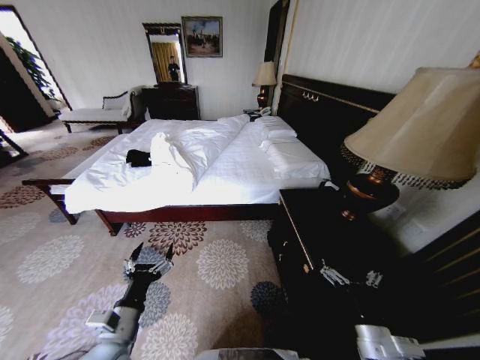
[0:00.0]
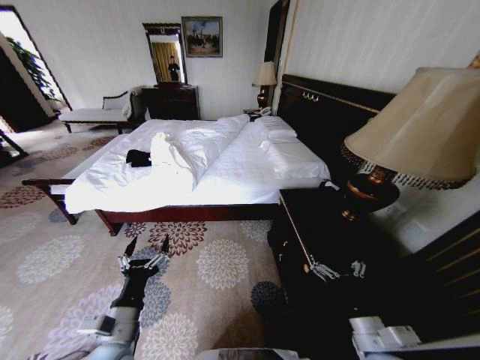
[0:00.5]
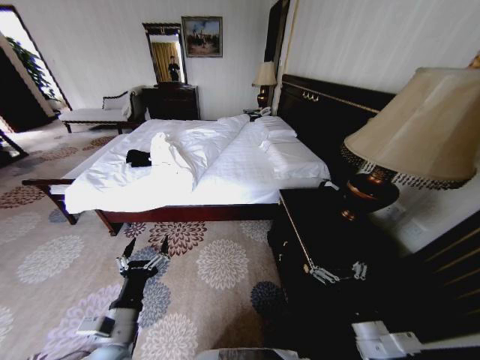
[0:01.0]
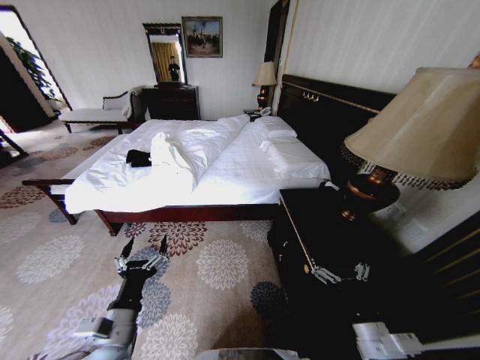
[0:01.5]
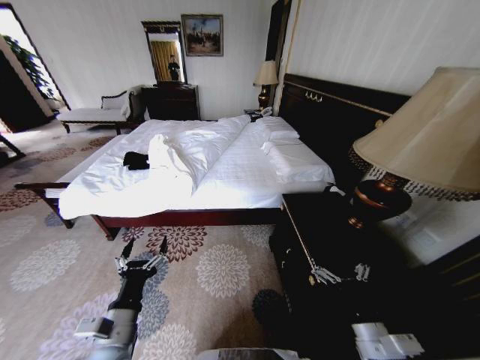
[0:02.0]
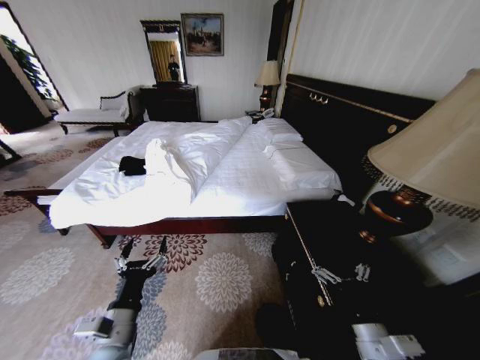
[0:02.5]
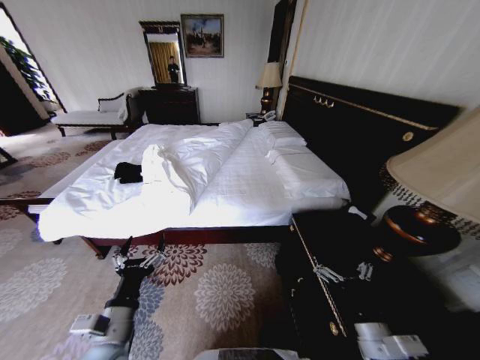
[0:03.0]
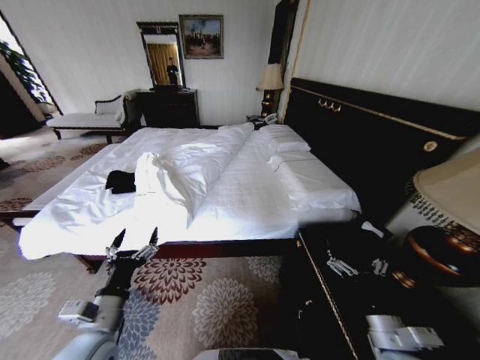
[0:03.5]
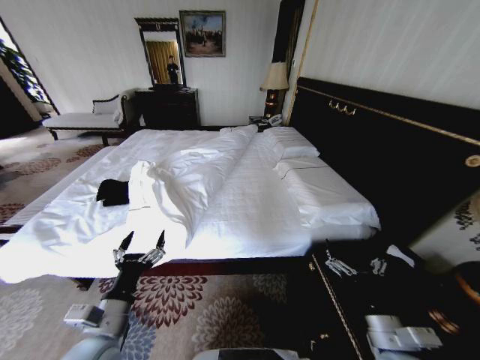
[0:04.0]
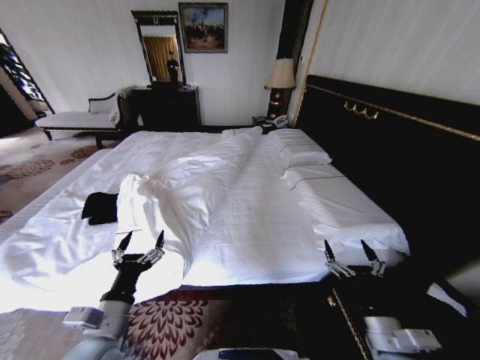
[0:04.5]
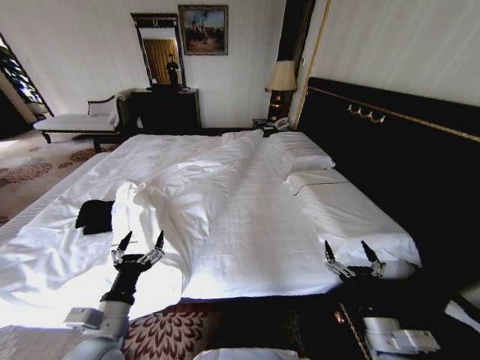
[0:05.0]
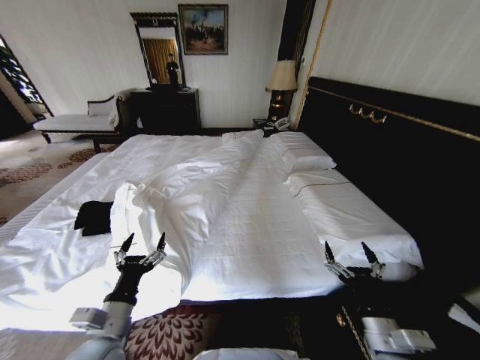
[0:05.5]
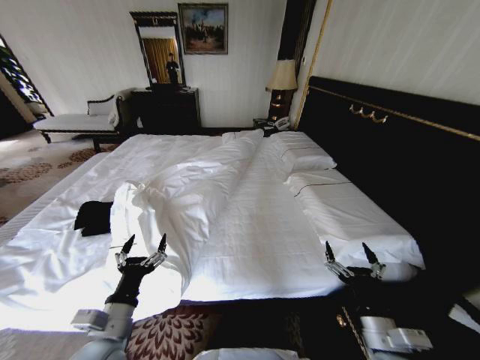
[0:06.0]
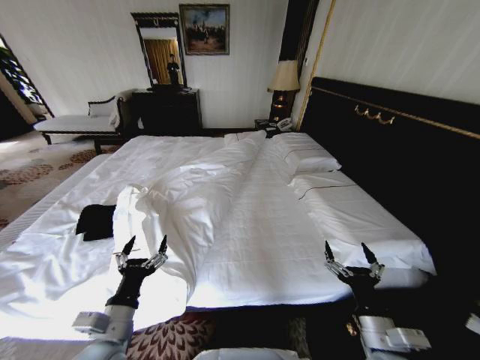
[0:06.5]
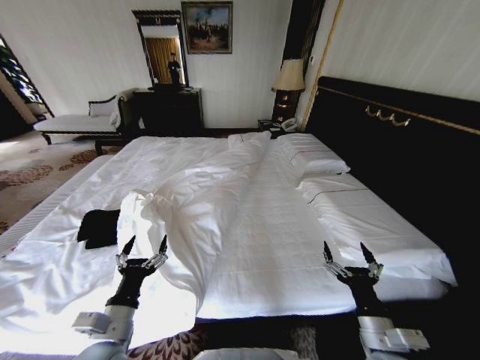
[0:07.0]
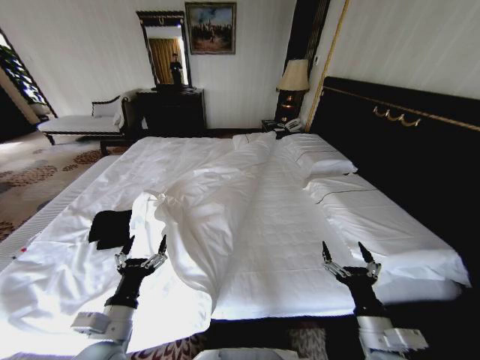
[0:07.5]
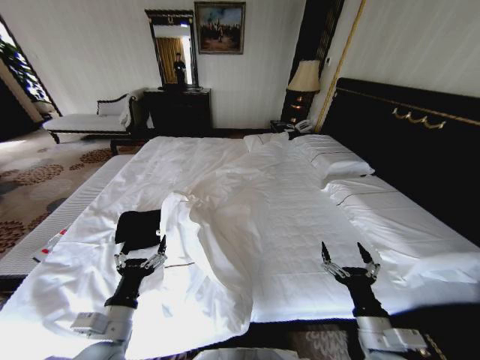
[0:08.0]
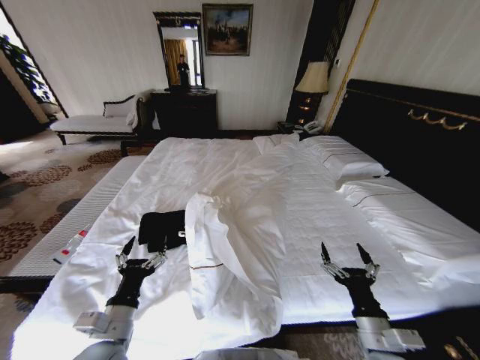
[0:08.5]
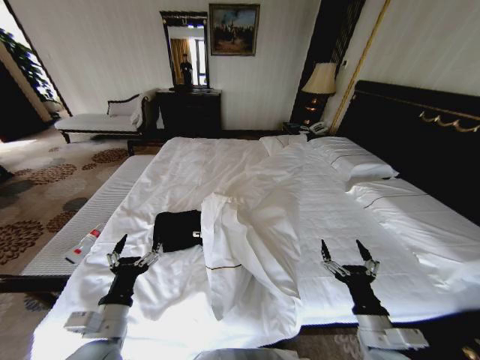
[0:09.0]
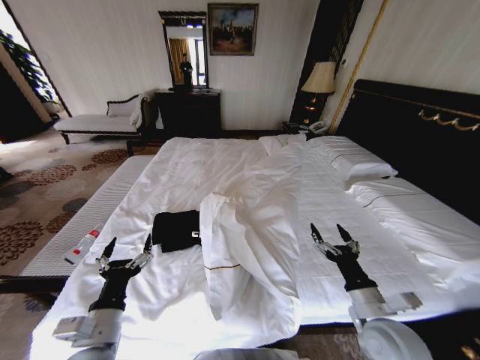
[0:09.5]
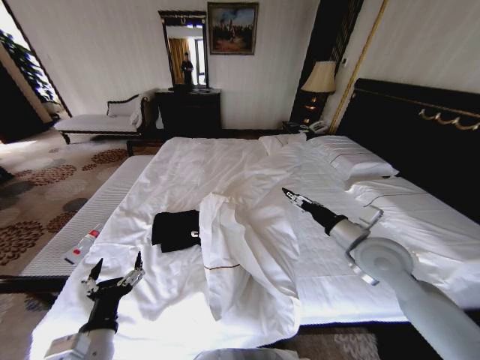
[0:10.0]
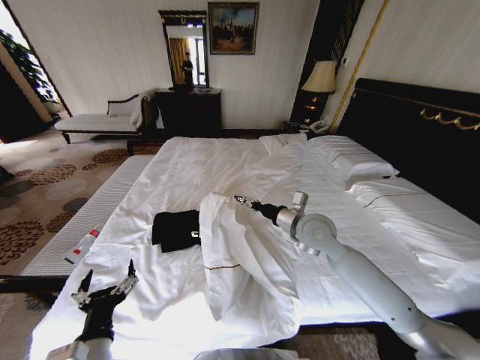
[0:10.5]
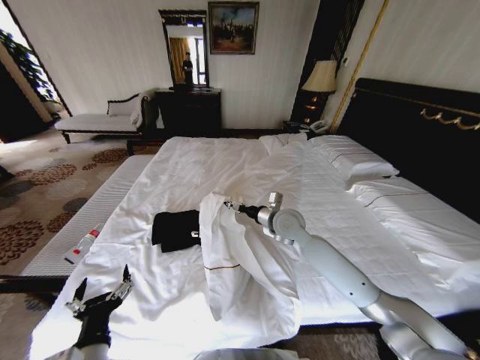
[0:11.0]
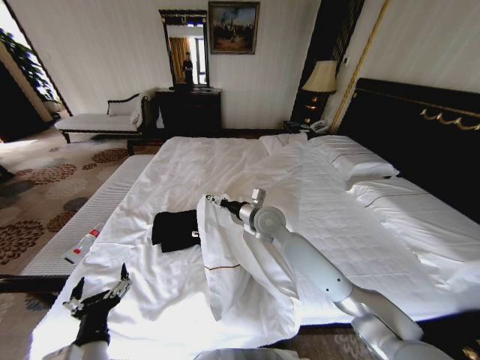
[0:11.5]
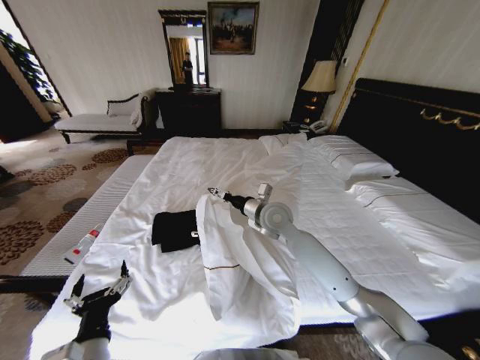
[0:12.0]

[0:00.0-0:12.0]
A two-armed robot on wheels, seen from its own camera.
Task of the whole recording: Fold the clothes on the bed.
0:08.0 to 0:10.0: The right gripper travels forward and upward by roughly 20 cm.
0:10.0 to 0:12.0: The right gripper is displaced to the left and forward by about 25 cm.

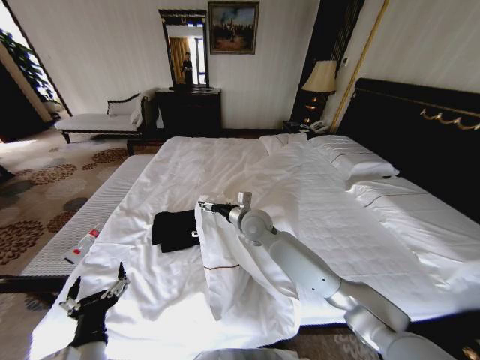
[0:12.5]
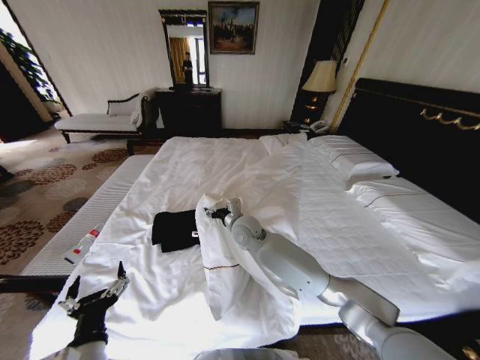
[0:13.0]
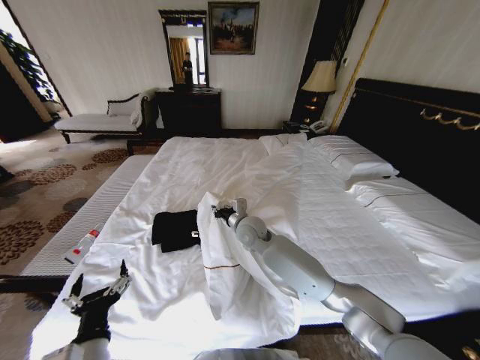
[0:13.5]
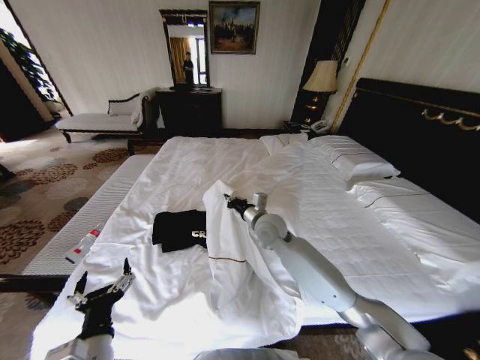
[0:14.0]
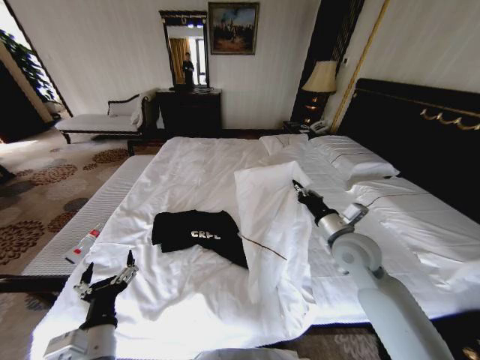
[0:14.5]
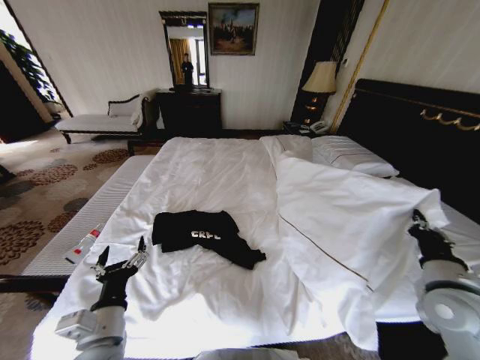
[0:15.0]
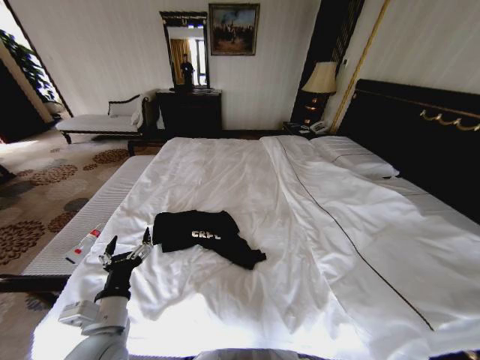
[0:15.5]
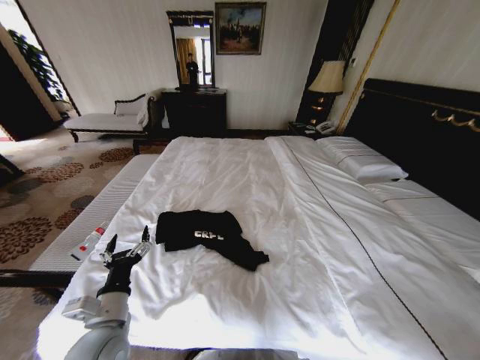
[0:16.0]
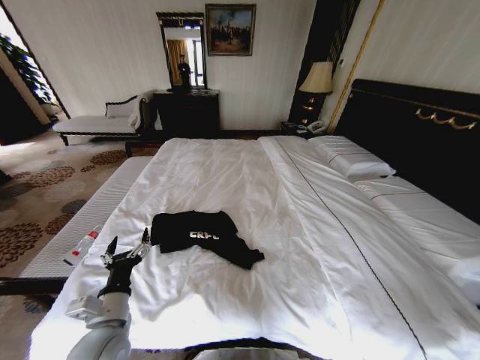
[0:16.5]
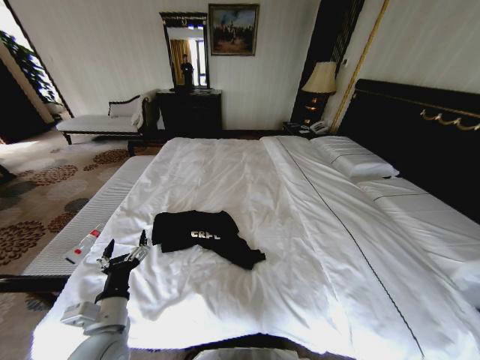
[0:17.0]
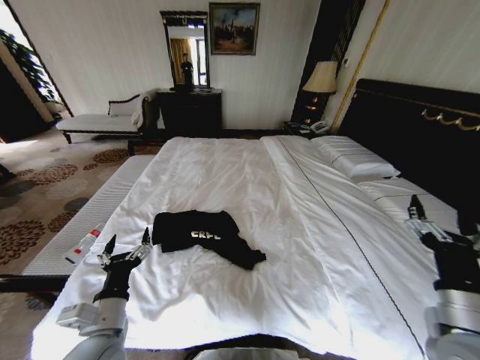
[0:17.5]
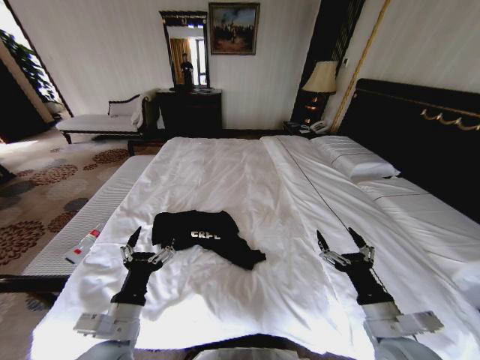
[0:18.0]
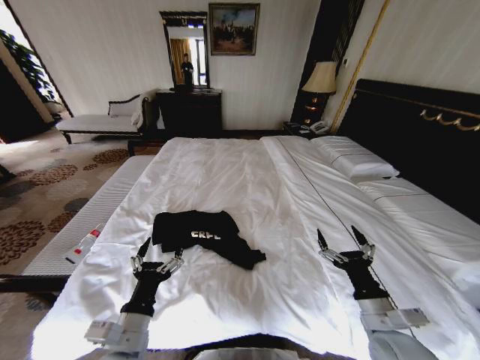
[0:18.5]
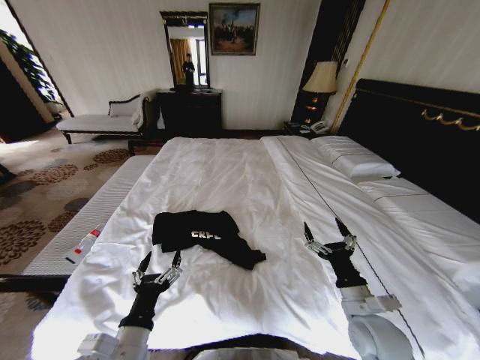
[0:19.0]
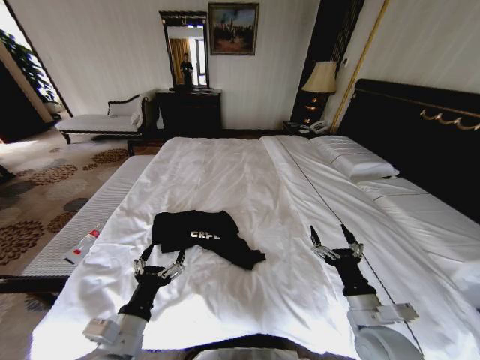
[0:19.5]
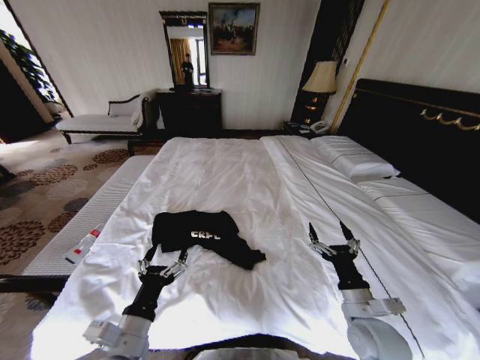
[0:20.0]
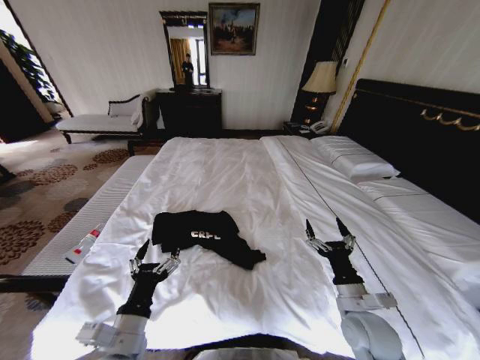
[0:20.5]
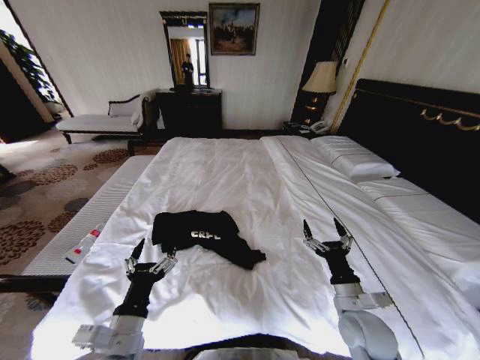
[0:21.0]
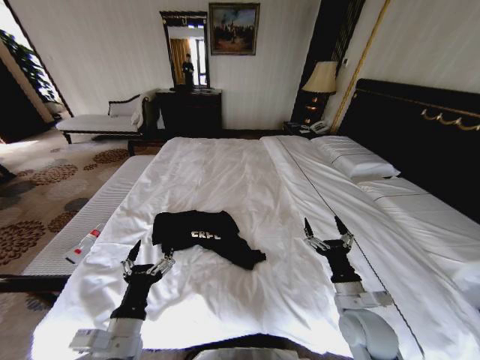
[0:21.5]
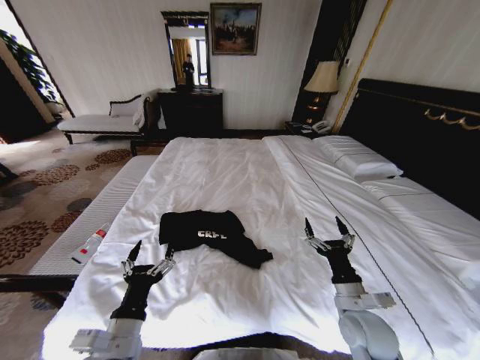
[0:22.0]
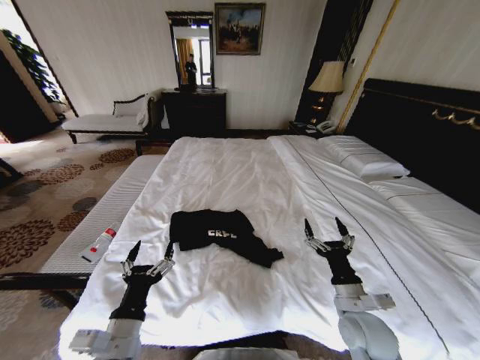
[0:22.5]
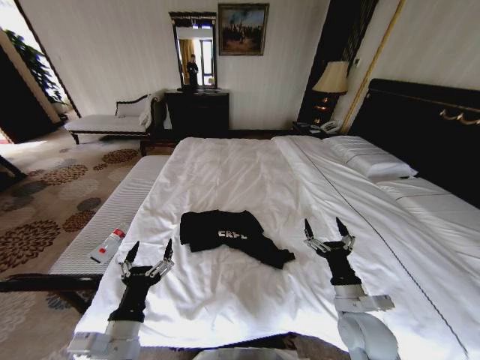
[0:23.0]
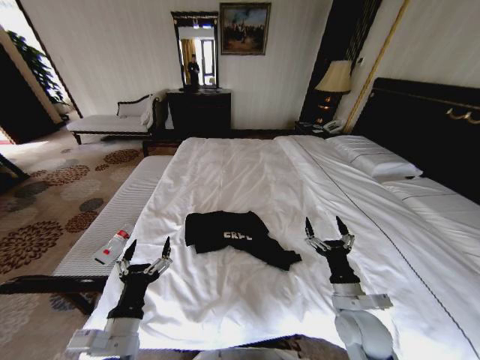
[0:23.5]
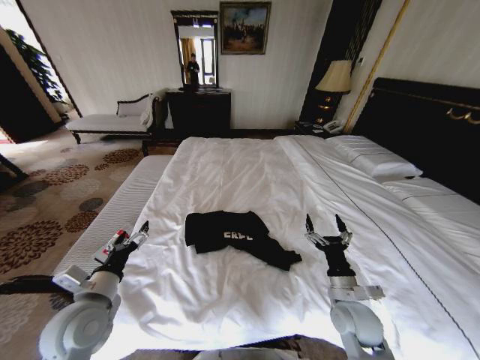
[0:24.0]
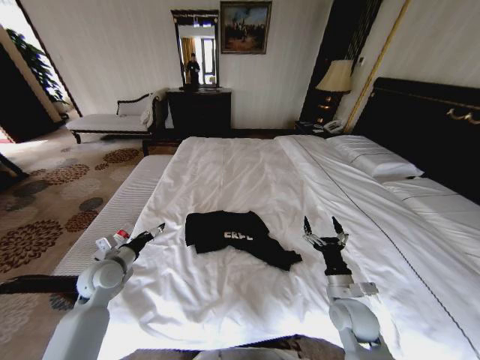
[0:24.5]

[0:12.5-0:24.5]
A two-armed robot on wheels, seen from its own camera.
Task of the whole recording: Fold the clothes on the bed.
0:12.5 to 0:14.5: The right gripper shifts some 25 cm to the right and backward, and closes its fingers.
0:14.5 to 0:16.5: The left gripper moves forward, about 5 cm, while the right gripper heads backward, to the right and downward, covering about 40 cm.
0:16.5 to 0:18.5: The right gripper is displaced to the left, forward and upward by roughly 25 cm, and opens its fingers; the left gripper moves roughly 5 cm.
0:18.5 to 0:20.5: The right gripper moves roughly 5 cm.
0:22.5 to 0:24.5: The right gripper moves about 5 cm. Meanwhile the left gripper is displaced forward and to the left by about 25 cm.

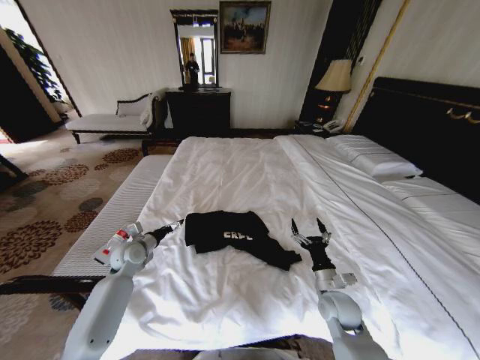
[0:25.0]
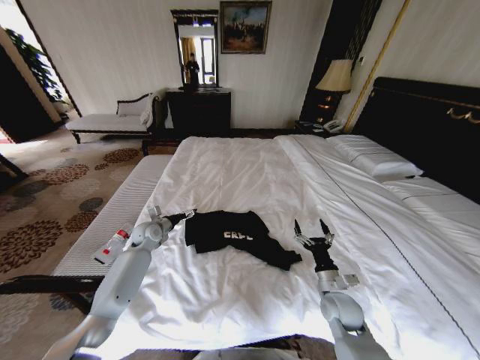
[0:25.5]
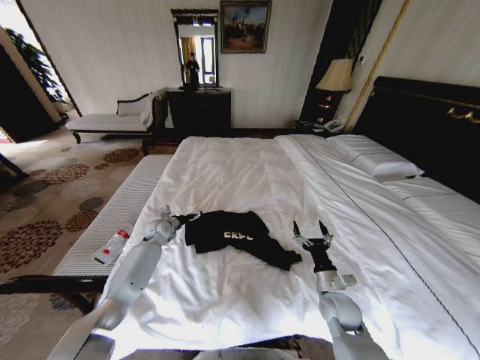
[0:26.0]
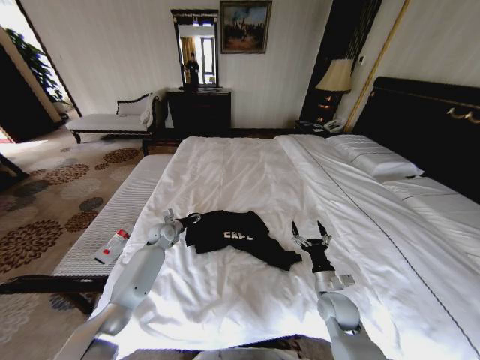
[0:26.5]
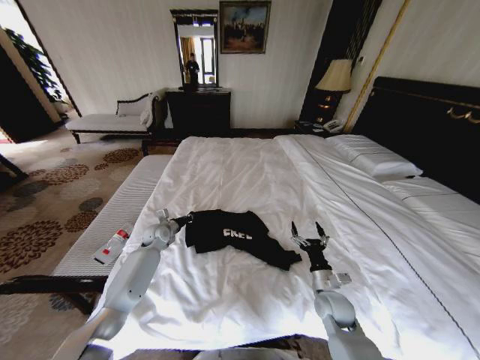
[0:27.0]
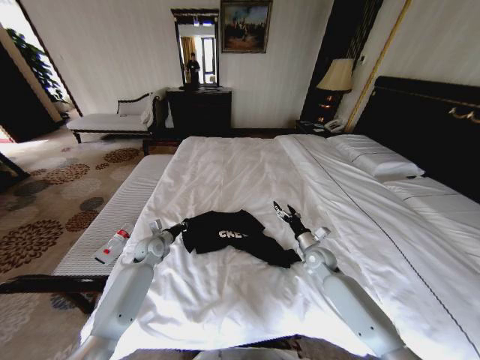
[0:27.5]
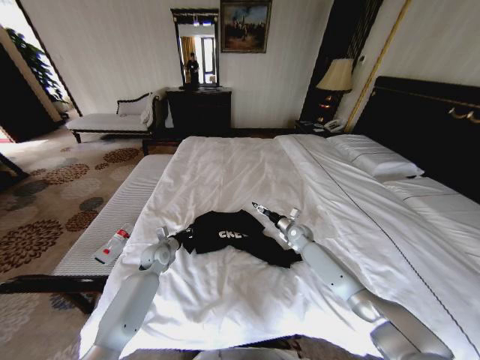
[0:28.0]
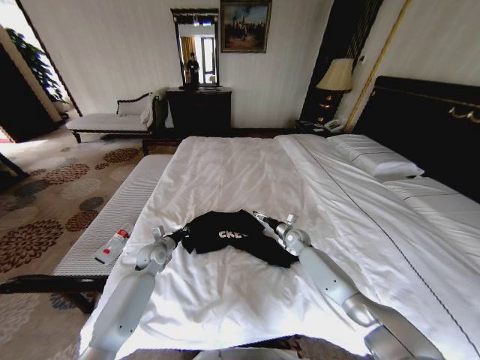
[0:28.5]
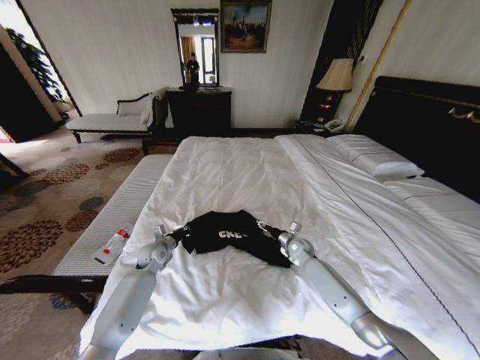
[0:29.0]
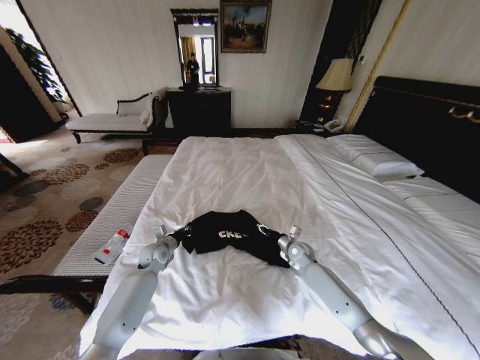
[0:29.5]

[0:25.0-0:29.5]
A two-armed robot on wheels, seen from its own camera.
Task of the whole recording: Fold the clothes on the bed.
0:25.0 to 0:27.0: The left gripper is displaced forward by approximately 10 cm, and closes.
0:27.0 to 0:29.5: The left gripper shifts about 5 cm backward; the right gripper is displaced forward by approximately 20 cm, and closes.
